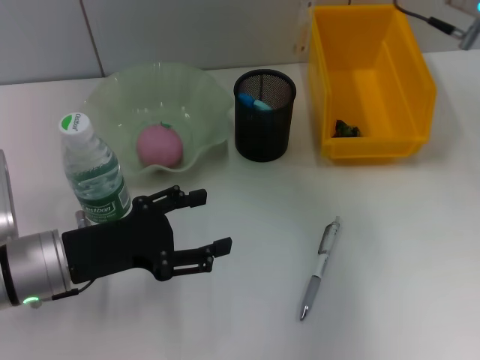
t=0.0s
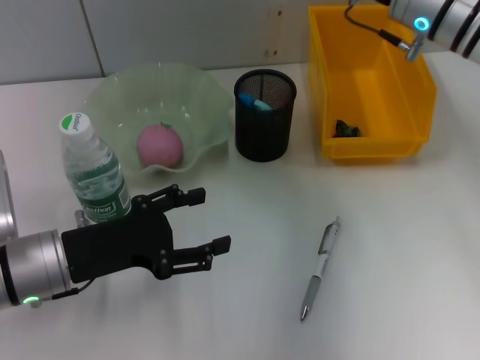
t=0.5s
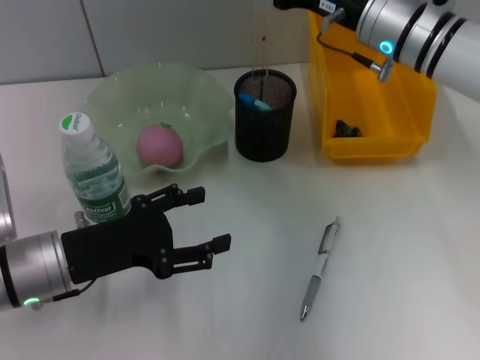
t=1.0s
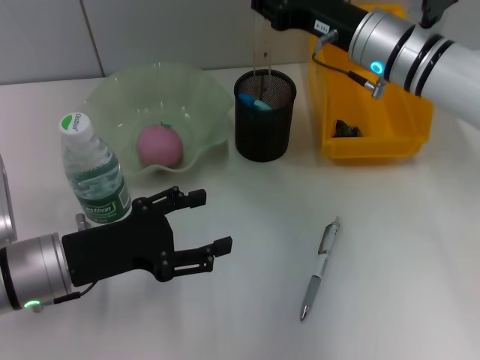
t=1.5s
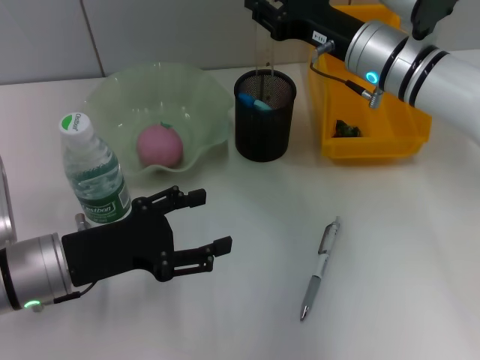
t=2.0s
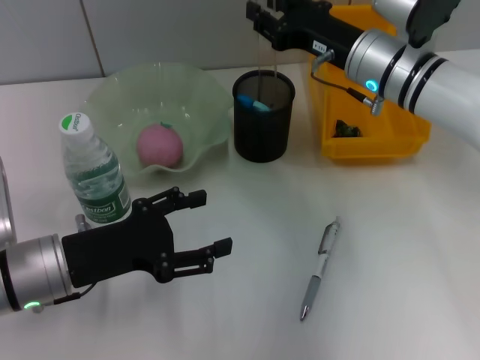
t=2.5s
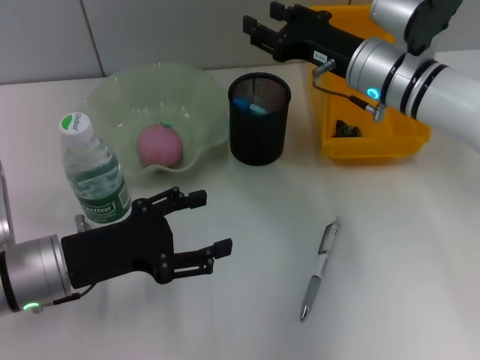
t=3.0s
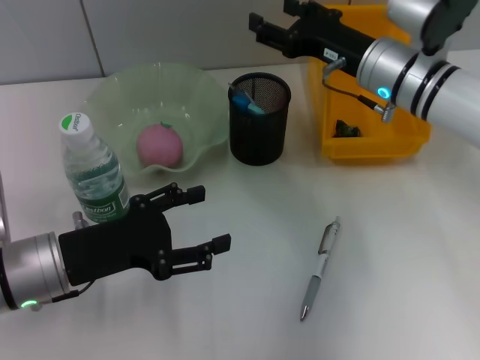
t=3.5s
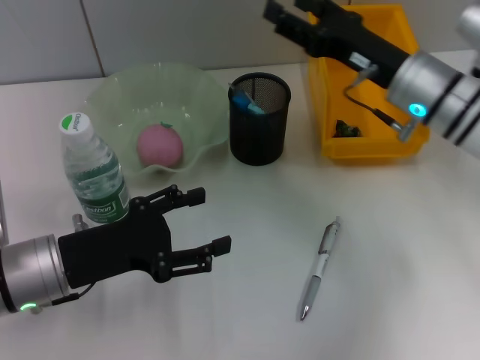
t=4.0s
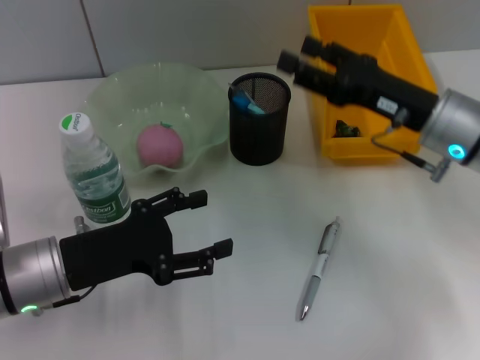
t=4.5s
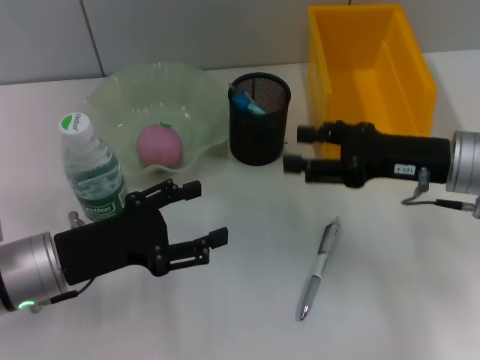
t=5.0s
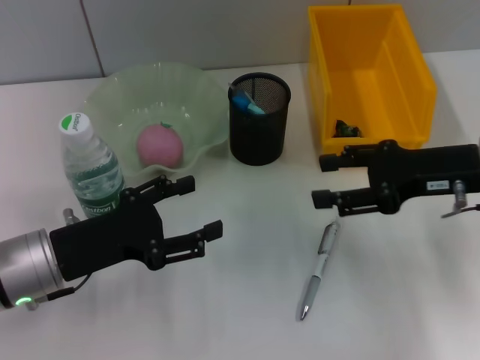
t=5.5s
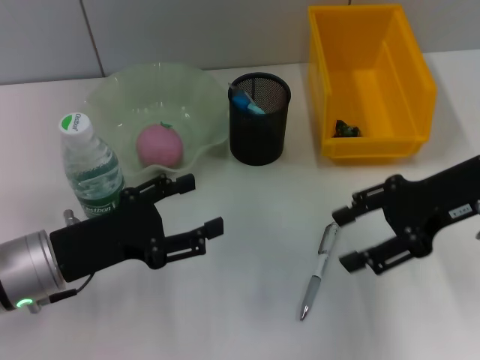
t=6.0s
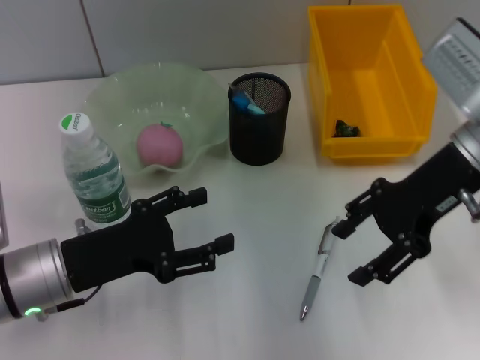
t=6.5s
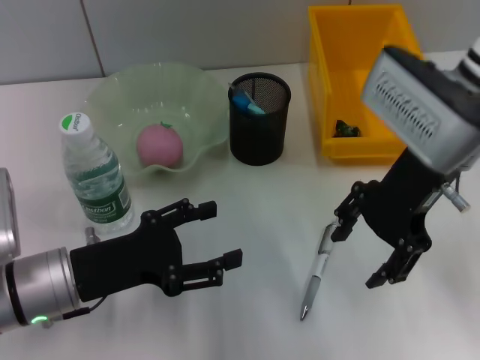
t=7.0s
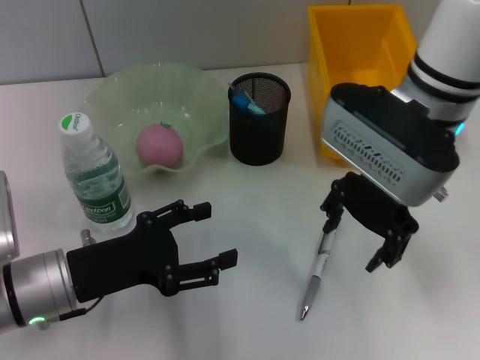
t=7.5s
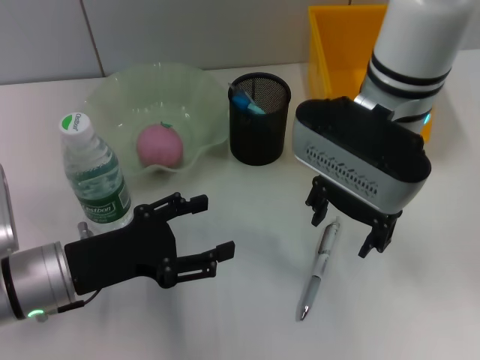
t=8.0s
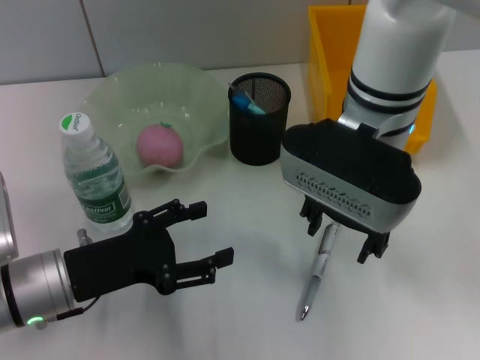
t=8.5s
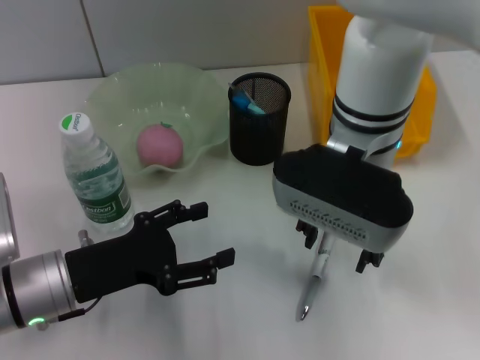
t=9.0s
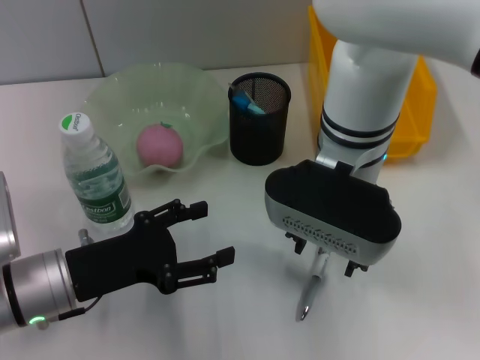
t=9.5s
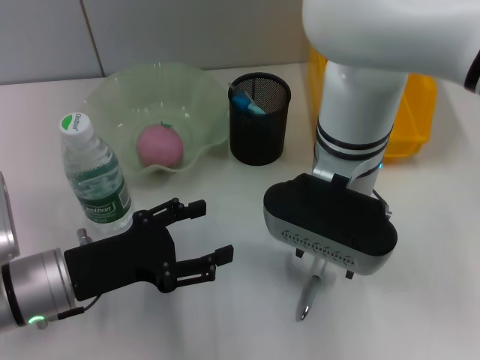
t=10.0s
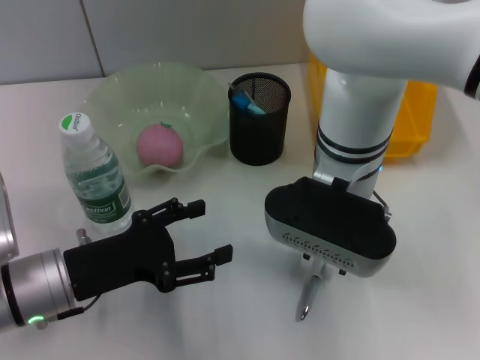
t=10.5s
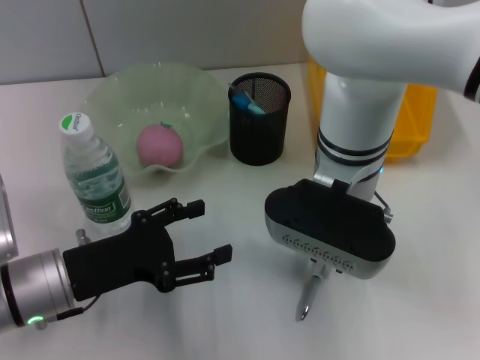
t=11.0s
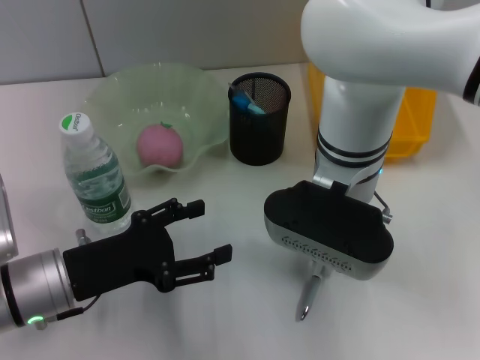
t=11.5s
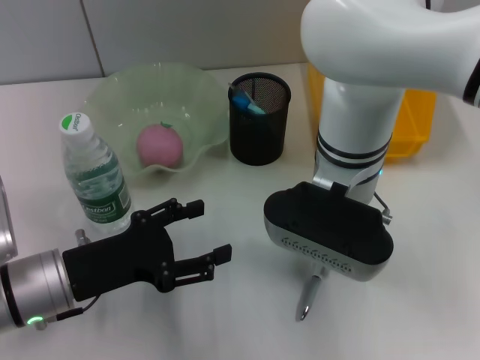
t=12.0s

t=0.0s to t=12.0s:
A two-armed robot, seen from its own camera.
Step, t=0.0s to t=3.0s: Place the ruler into the pen holder with the right hand.
t=0.0s to t=2.0s: The right gripper goes some 10 cm downward and to the left.
t=2.0s to t=4.0s: The right gripper shifts by some 5 cm, and opens its fingers.
t=4.0s to t=6.0s: The right gripper goes about 10 cm backward and to the right.
t=6.0s to t=8.0s: The right gripper moves to the left, approximately 15 cm.
t=8.0s to t=10.0s: The right gripper shifts by approximately 5 cm.
t=10.0s to t=12.0s: The right gripper closes its fingers.

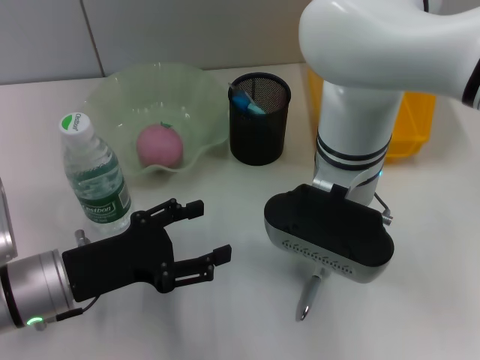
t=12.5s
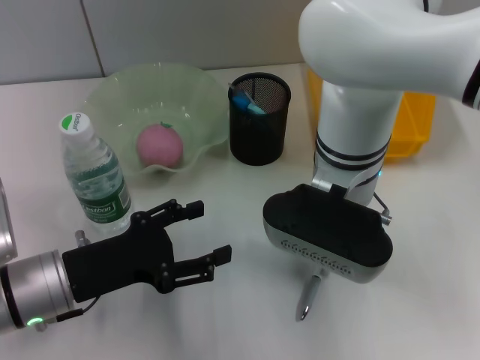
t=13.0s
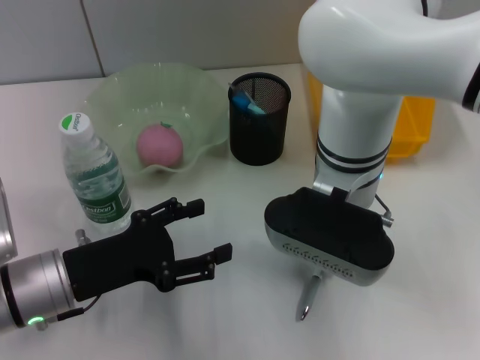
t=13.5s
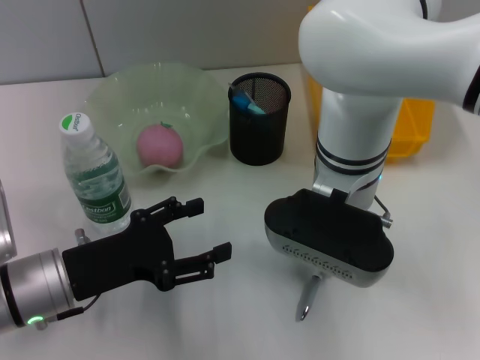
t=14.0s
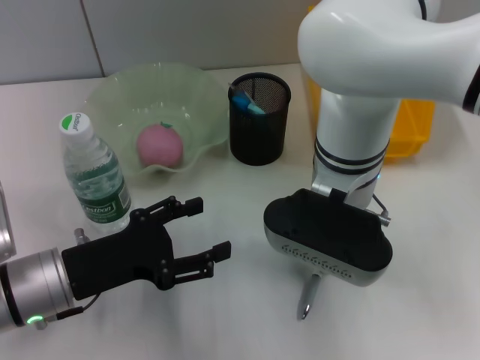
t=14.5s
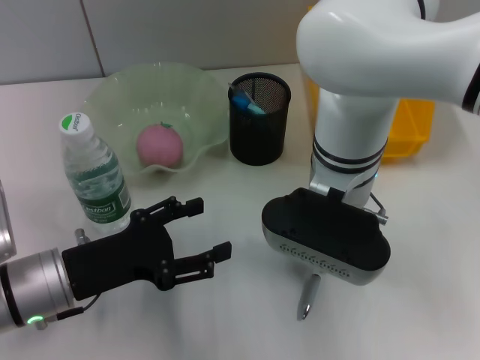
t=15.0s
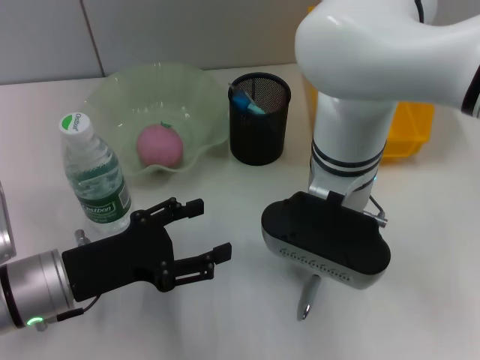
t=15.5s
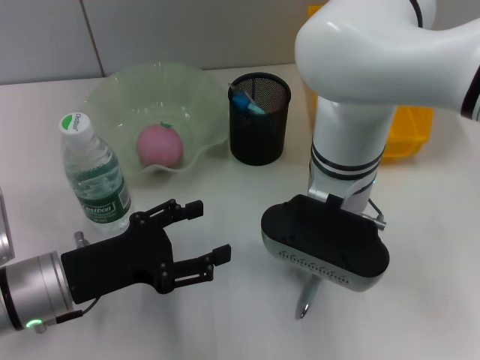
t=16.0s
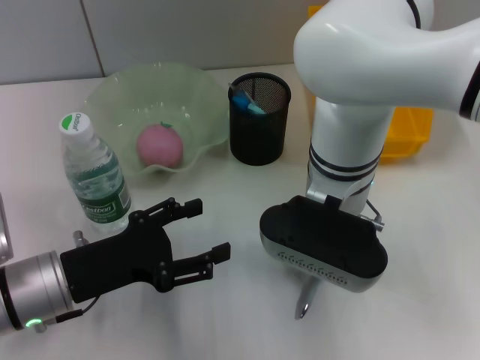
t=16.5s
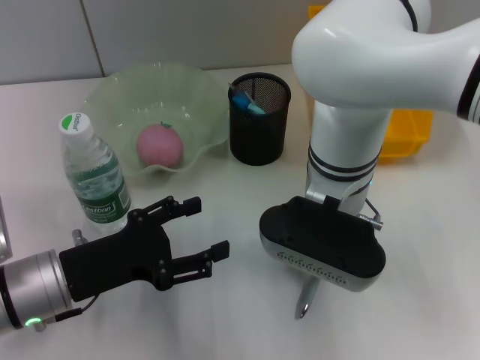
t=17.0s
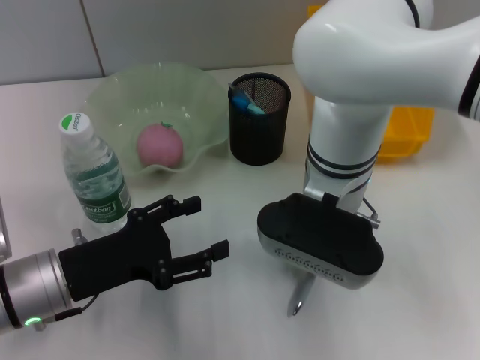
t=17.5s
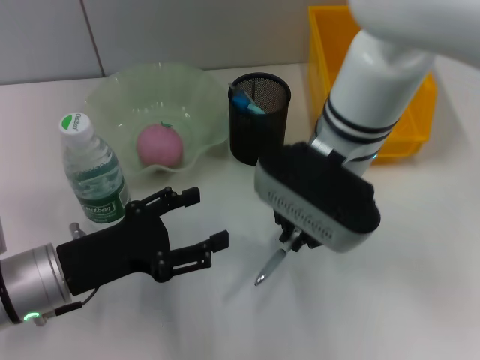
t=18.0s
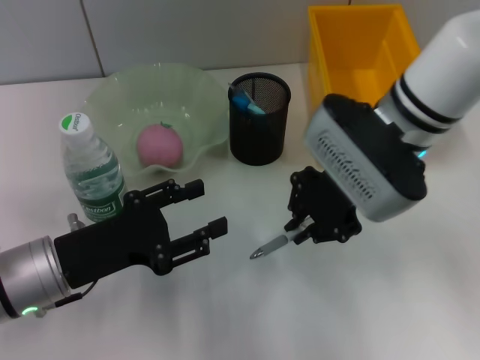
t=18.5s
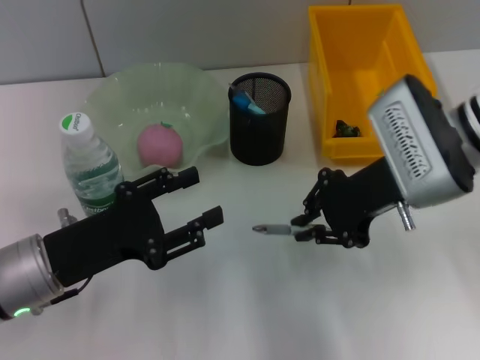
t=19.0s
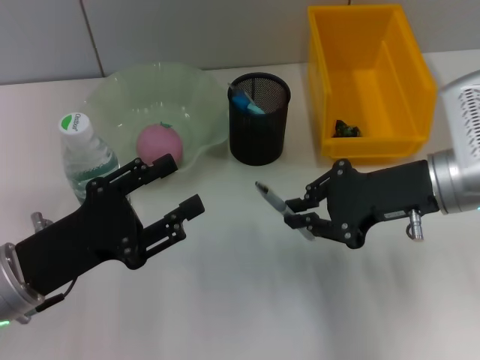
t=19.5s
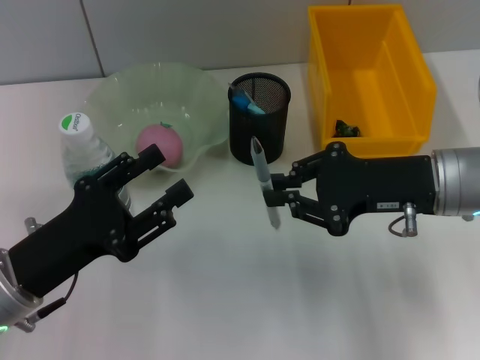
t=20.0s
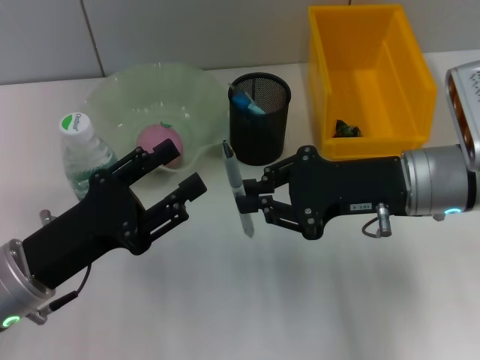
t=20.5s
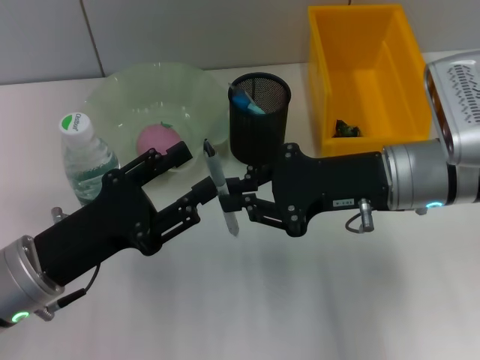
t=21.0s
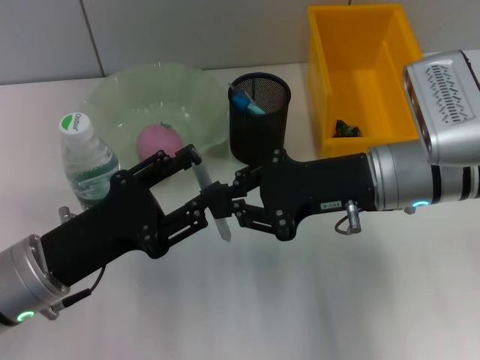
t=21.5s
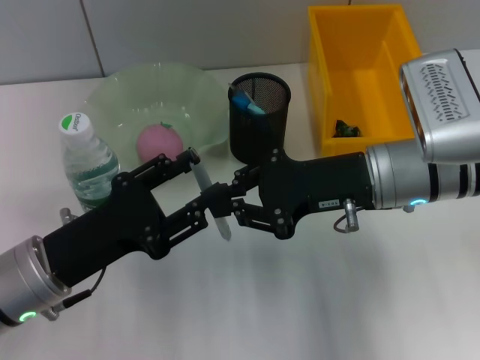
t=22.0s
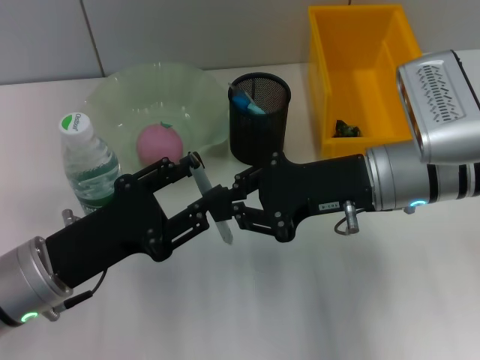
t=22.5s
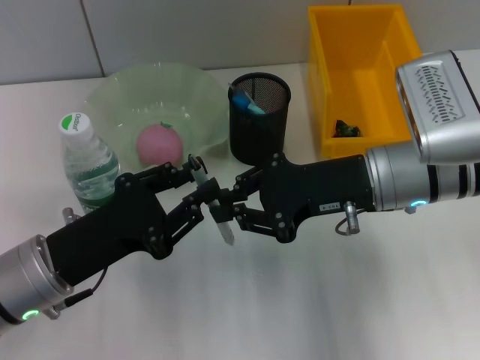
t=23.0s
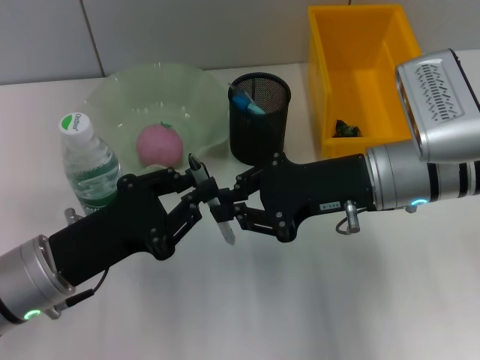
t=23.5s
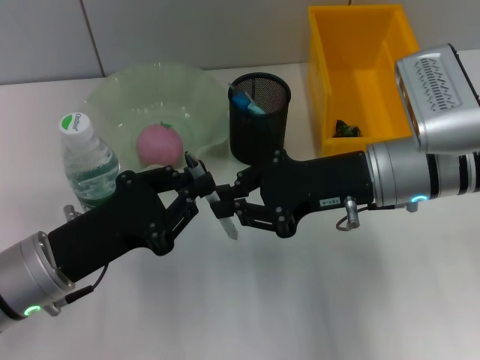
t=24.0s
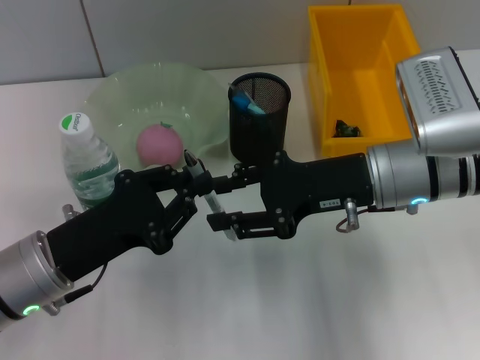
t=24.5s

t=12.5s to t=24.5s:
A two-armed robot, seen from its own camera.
Step, t=12.5s to t=17.0s: Grab the gray spring-action pen with the right hand.
Step, t=17.5s to t=24.0s: Pass the gray spring-action pen from the right hand to the left hand.
t=12.5s to t=16.5s: Both grippers stay put.
t=16.5s to t=18.5s: The right gripper heads to the right, covering about 5 cm.
t=18.5s to t=20.5s: The right gripper goes some 5 cm to the right.
t=20.5s to t=22.5s: The grippers stay close to where they were, moving slightly.
t=22.5s to t=24.5s: The left gripper closes up.

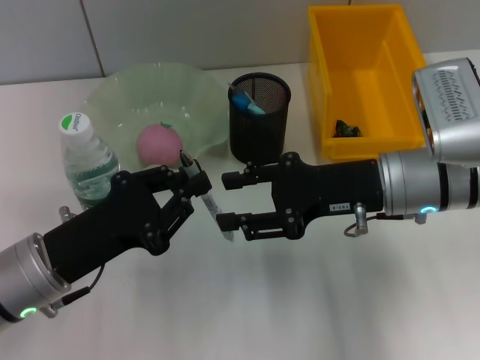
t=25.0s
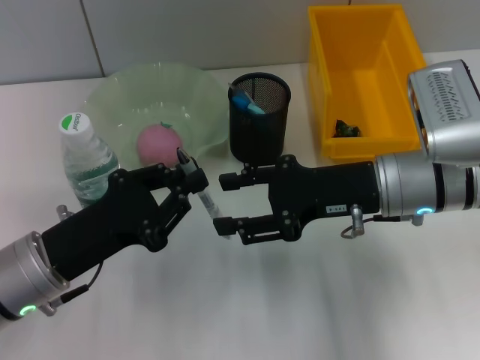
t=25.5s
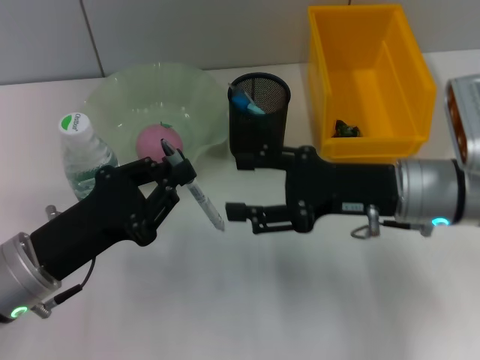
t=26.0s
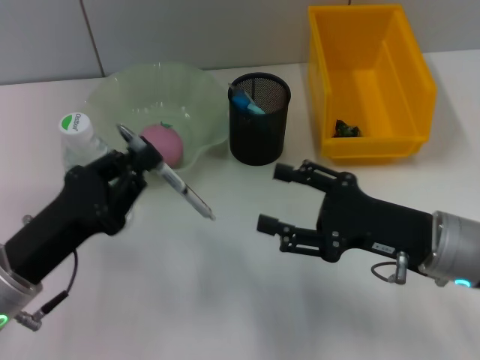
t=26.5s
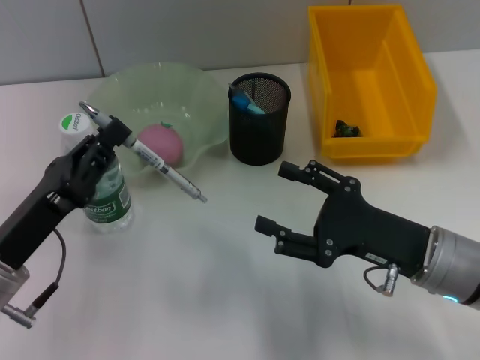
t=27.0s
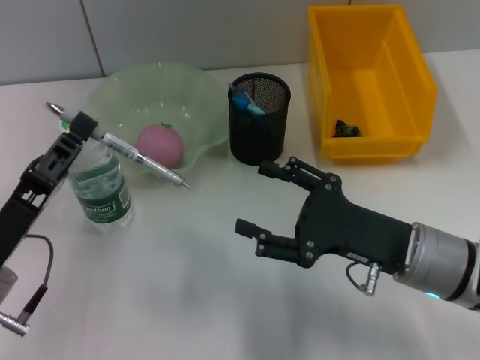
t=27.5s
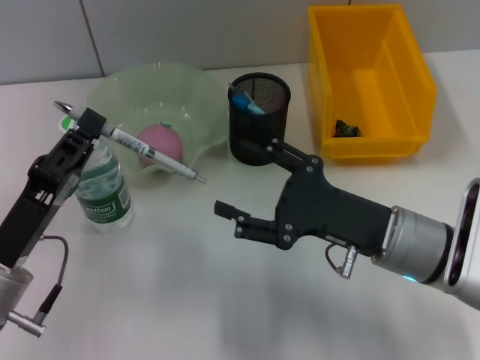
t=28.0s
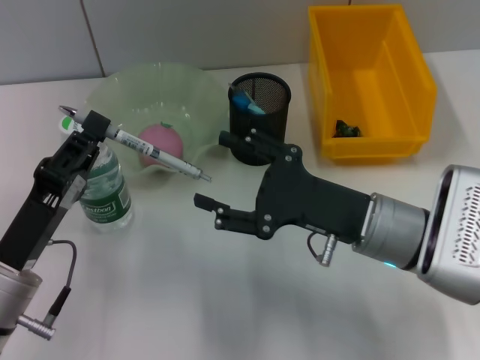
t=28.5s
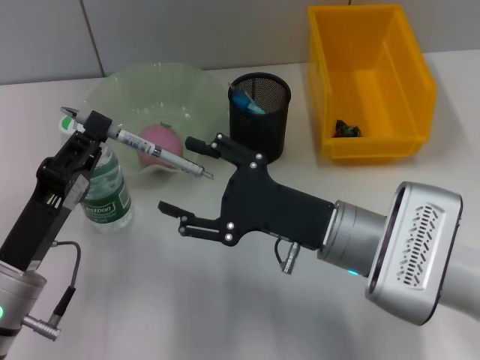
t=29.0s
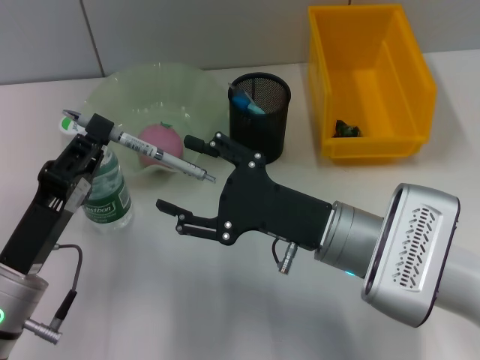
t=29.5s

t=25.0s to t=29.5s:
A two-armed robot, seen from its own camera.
t=25.0s to t=27.0s: The right gripper heads backward and downward, covering approximately 10 cm.
t=27.0s to t=29.5s: The right gripper is displaced to the left by approximately 10 cm.
